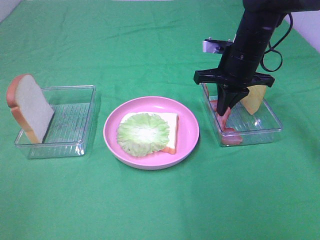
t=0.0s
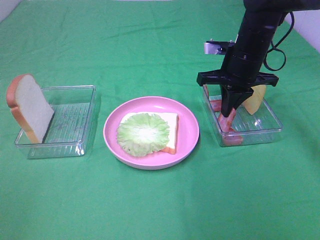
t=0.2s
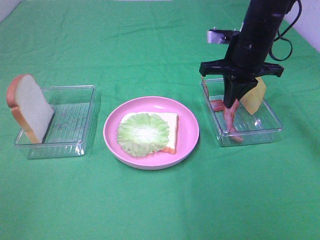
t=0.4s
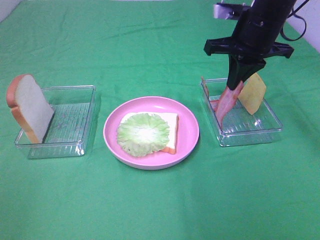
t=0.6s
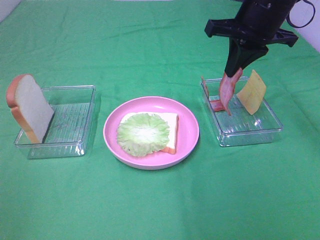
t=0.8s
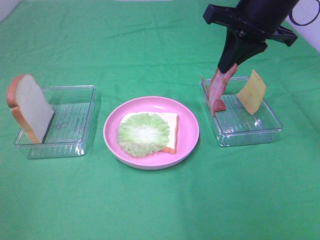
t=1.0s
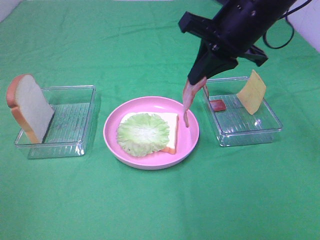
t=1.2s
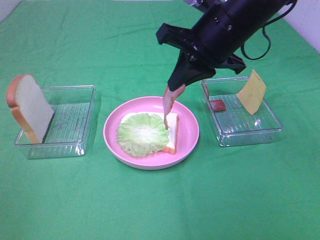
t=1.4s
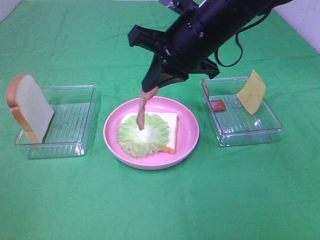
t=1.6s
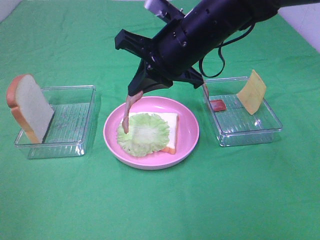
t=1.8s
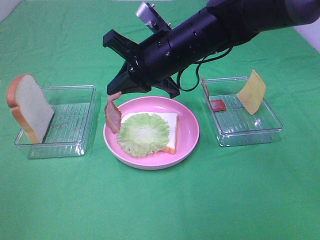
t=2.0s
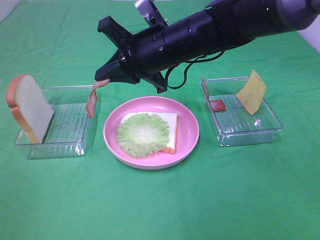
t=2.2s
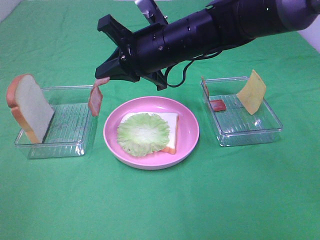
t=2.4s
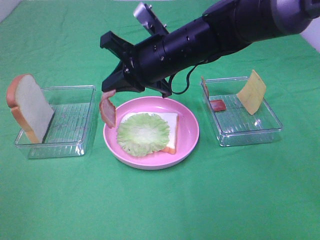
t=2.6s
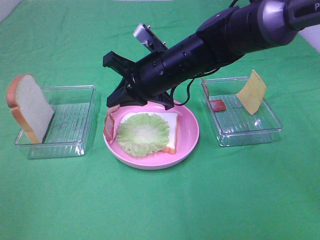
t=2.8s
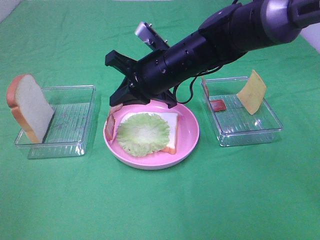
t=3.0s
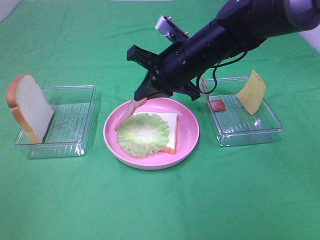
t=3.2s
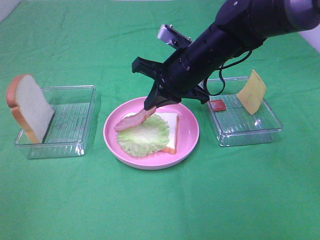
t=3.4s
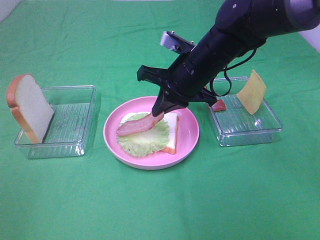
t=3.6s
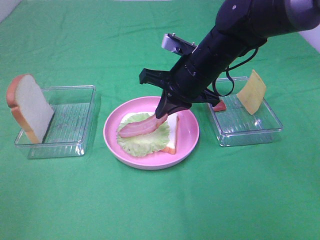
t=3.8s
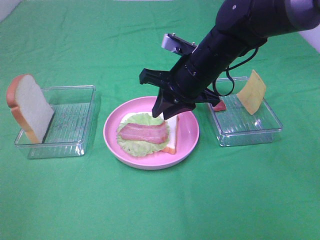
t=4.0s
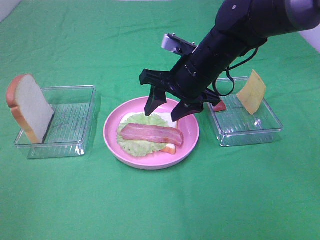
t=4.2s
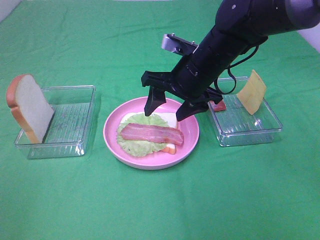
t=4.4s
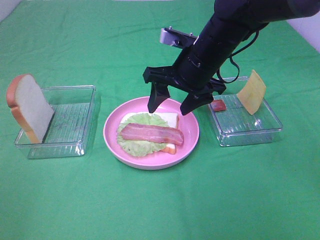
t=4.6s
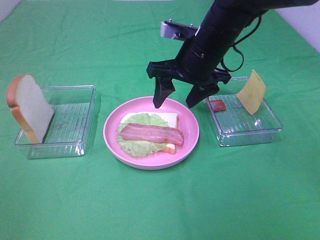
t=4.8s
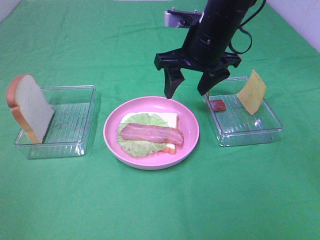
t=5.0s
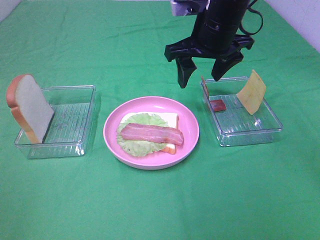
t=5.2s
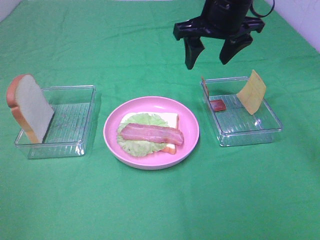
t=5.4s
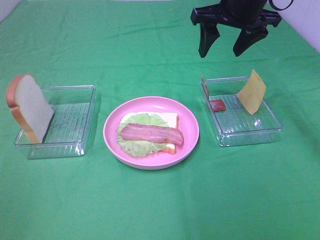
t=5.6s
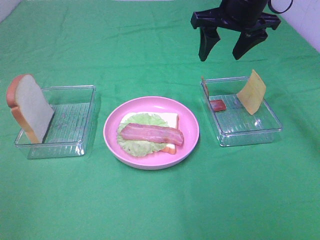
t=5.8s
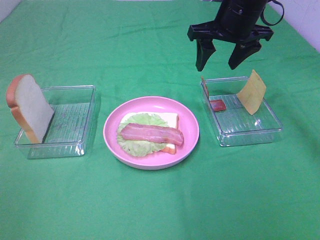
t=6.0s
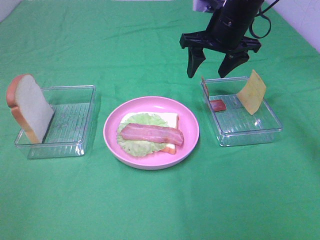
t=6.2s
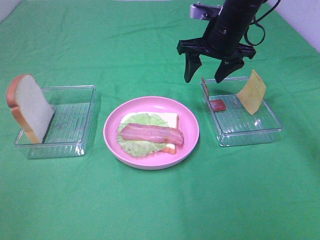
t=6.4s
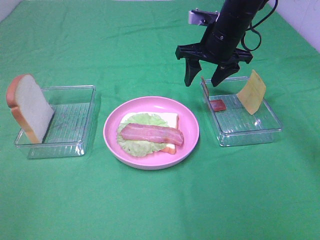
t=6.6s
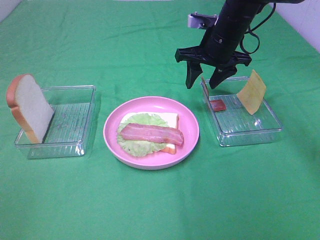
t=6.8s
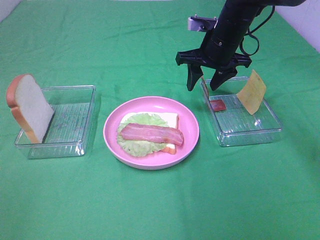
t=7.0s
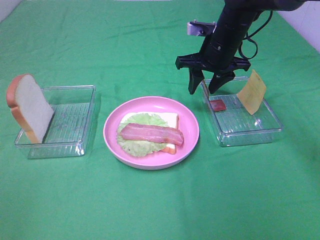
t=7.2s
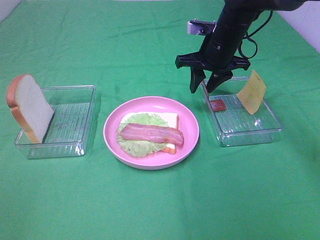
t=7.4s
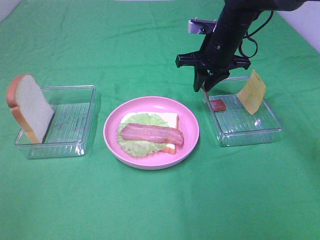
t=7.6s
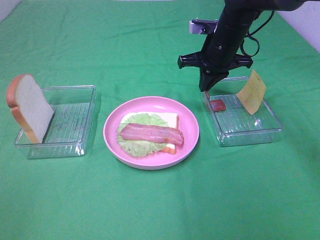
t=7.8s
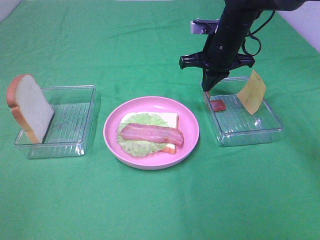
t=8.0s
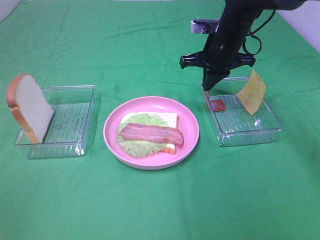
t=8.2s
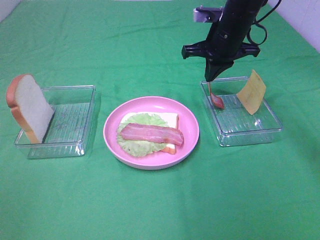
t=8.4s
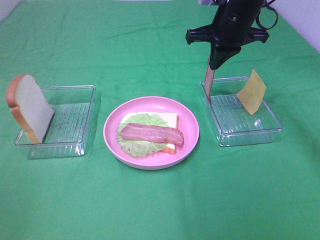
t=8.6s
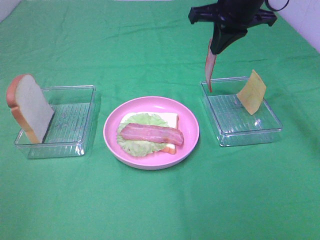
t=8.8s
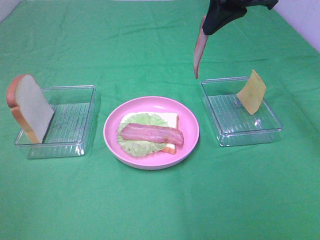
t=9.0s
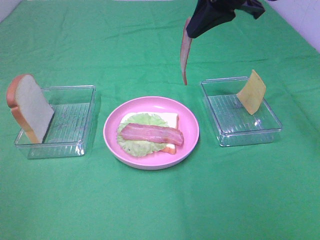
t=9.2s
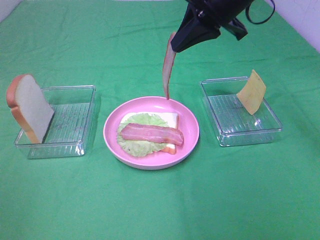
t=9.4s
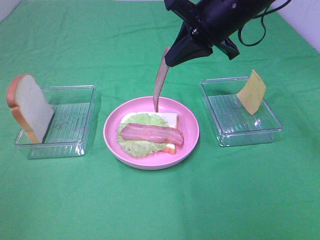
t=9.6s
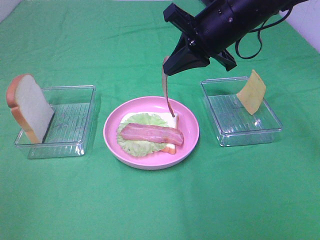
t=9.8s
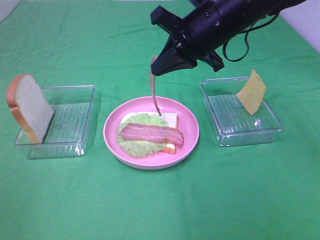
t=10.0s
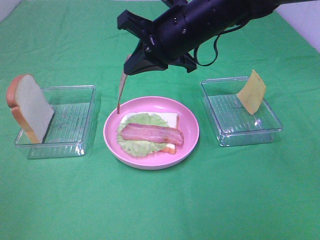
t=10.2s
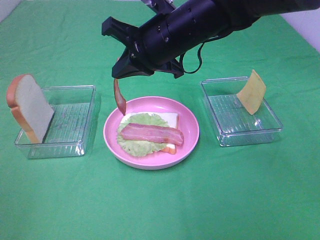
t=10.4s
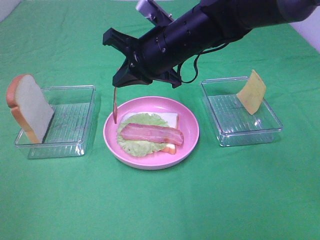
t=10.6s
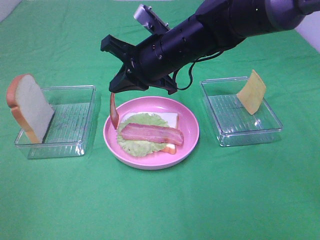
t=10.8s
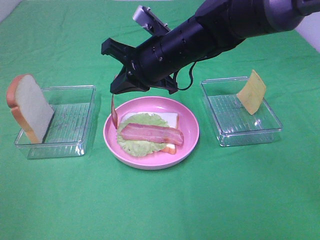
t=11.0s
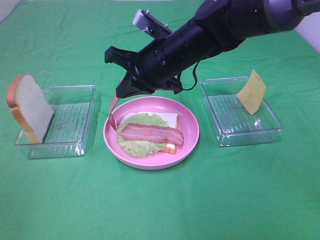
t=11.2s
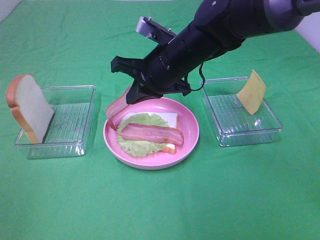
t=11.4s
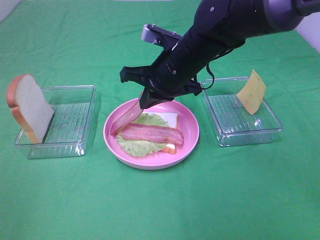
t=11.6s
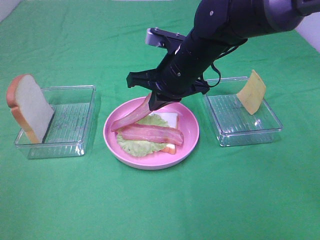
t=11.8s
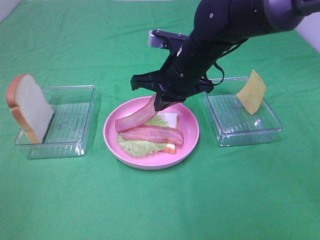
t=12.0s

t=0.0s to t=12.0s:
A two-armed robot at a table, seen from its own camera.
Task of the whole recording: Make sandwiches.
Step, t=0.2s to t=4.2s: Right hand:place bacon on lettuce slice.
Step, t=4.4s to t=8.2s: Right hand:grab the bacon.
t=0.0s to t=1.6s: The right gripper travels to the left, backward and upward by approximately 15 cm.
t=1.6s to t=3.0s: The right gripper heads downward, covering approximately 10 cm.
t=3.0s to t=4.4s: The right gripper opens up.
t=4.4s to t=6.0s: The right gripper travels upward, forward and to the right by some 10 cm.
t=6.0s to t=7.6s: The right gripper moves downward, roughly 5 cm, and closes.
t=7.6s to t=9.0s: The right gripper travels upward by approximately 15 cm.
t=9.0s to t=10.4s: The right gripper heads to the left and downward, covering roughly 15 cm.
t=10.4s to t=12.0s: The right gripper is displaced downward by roughly 5 cm.

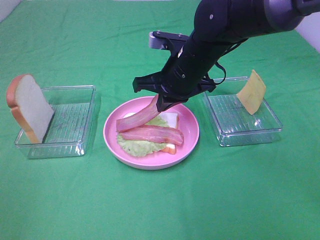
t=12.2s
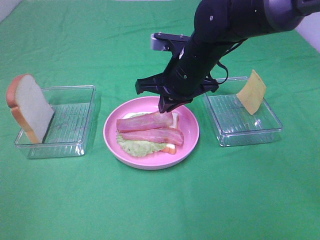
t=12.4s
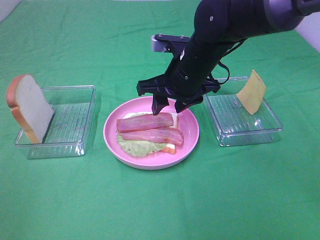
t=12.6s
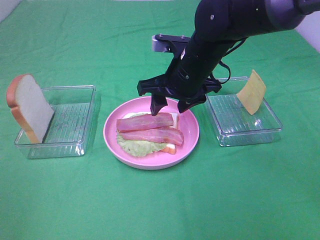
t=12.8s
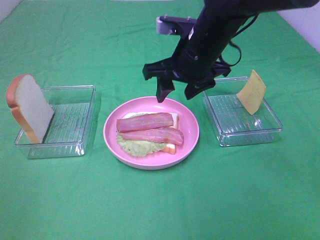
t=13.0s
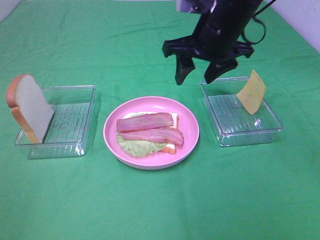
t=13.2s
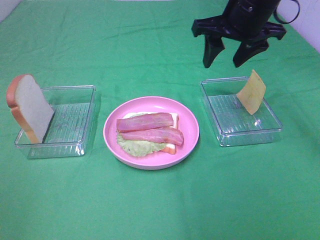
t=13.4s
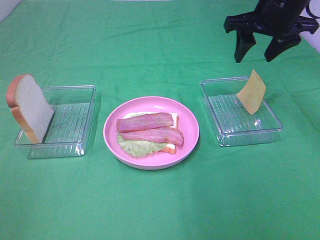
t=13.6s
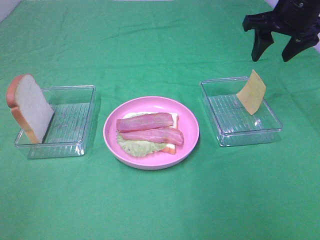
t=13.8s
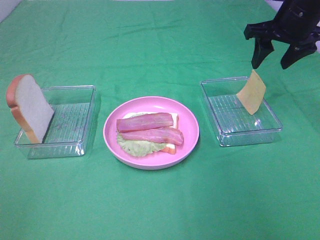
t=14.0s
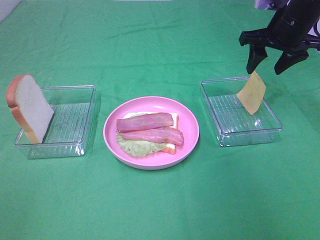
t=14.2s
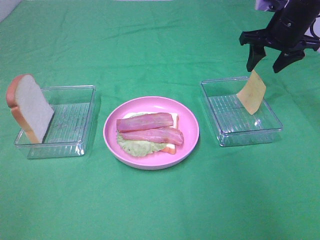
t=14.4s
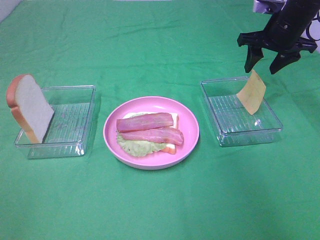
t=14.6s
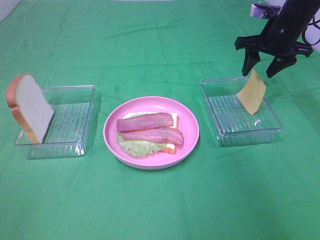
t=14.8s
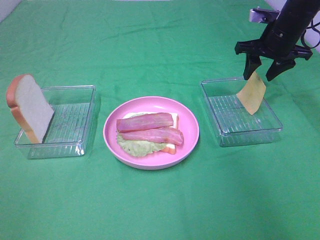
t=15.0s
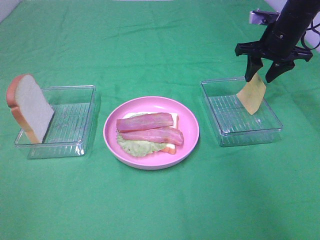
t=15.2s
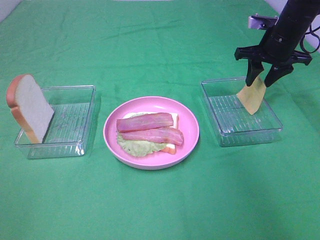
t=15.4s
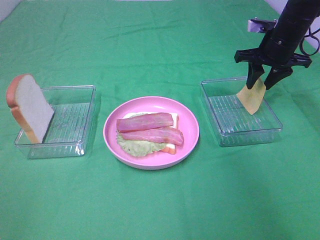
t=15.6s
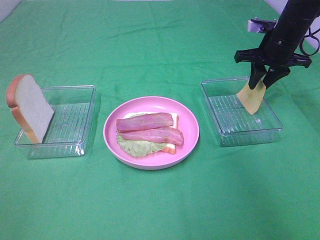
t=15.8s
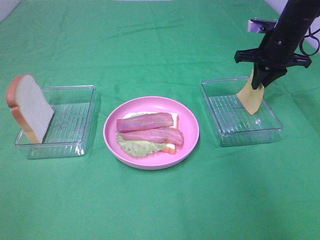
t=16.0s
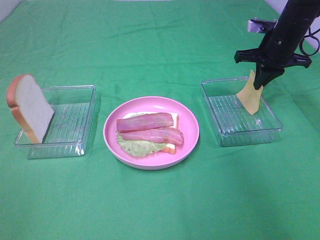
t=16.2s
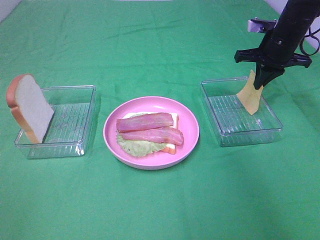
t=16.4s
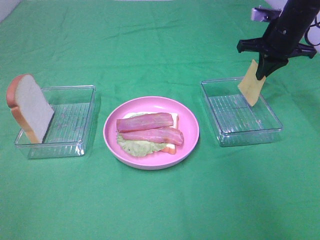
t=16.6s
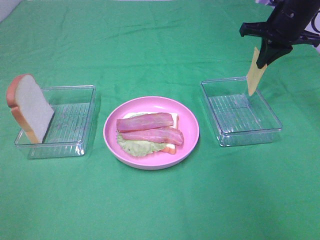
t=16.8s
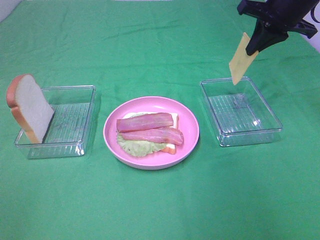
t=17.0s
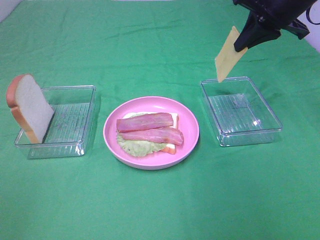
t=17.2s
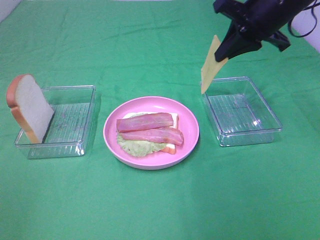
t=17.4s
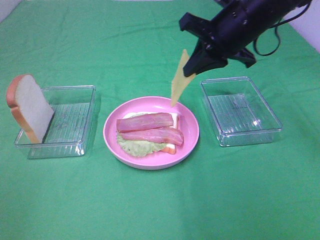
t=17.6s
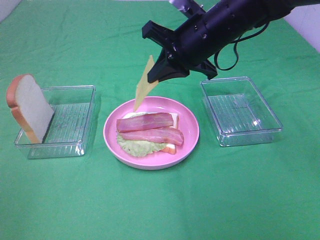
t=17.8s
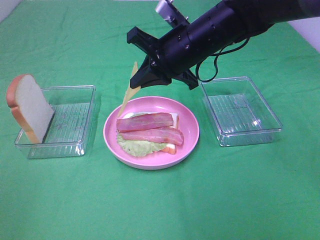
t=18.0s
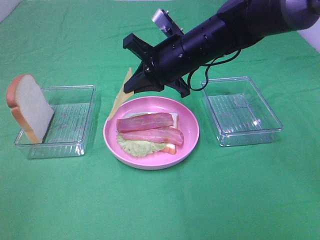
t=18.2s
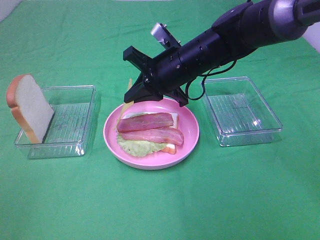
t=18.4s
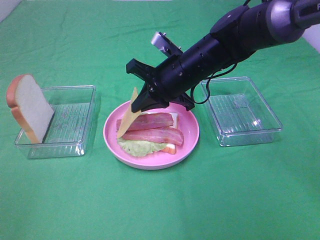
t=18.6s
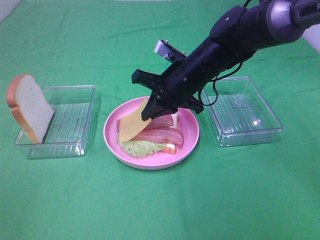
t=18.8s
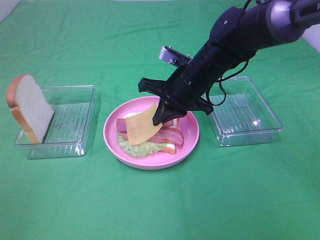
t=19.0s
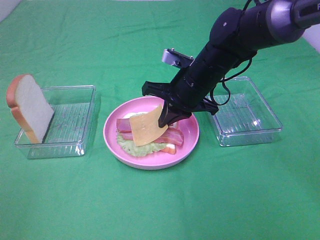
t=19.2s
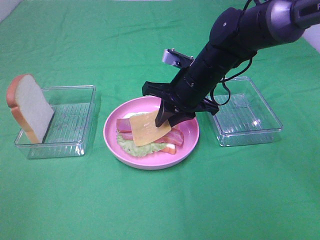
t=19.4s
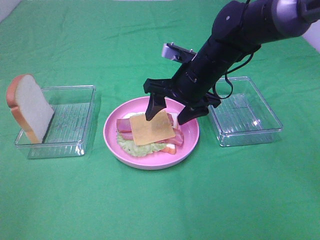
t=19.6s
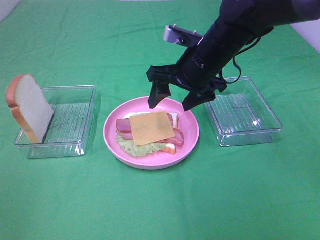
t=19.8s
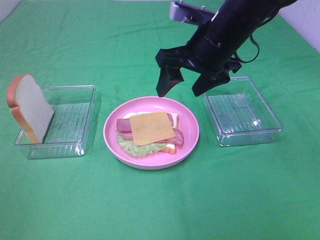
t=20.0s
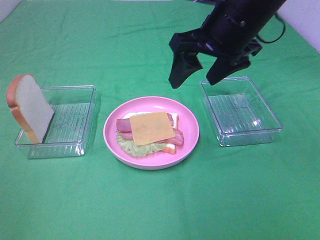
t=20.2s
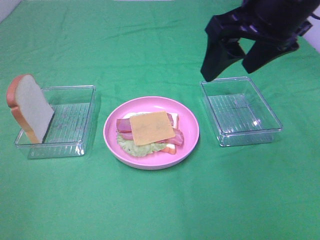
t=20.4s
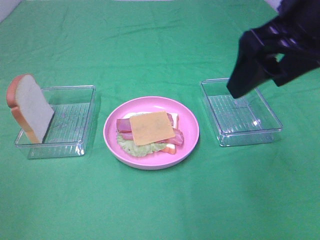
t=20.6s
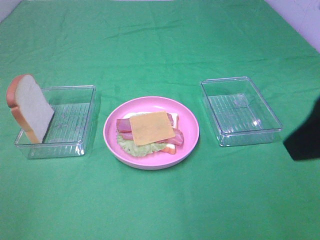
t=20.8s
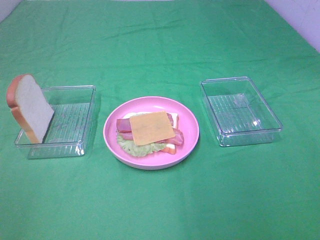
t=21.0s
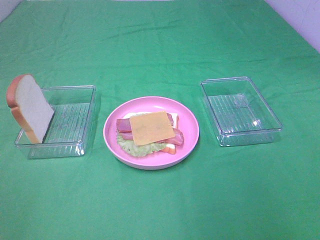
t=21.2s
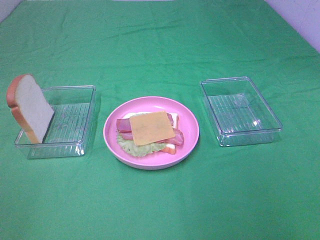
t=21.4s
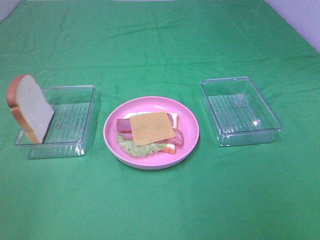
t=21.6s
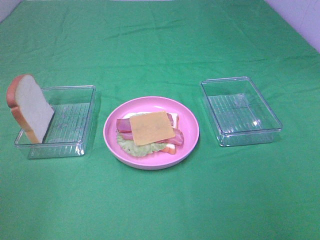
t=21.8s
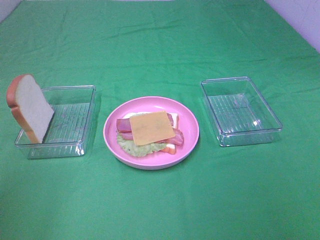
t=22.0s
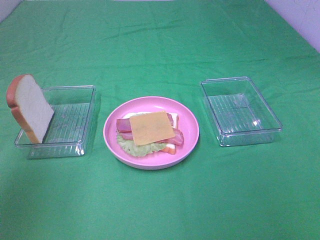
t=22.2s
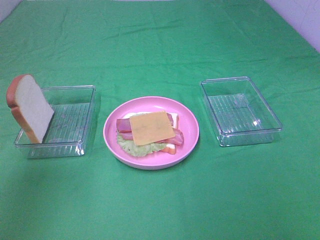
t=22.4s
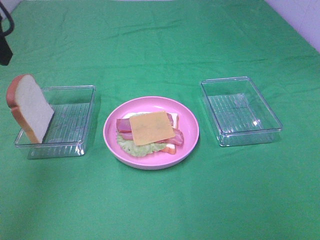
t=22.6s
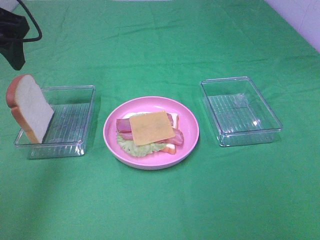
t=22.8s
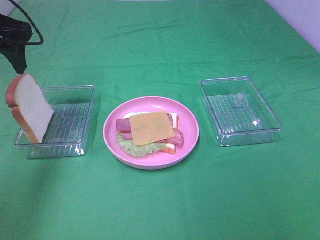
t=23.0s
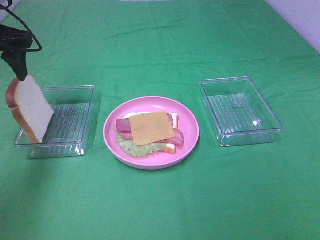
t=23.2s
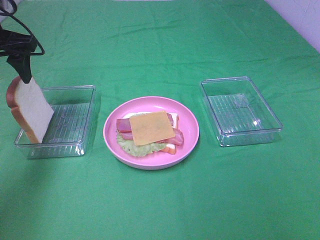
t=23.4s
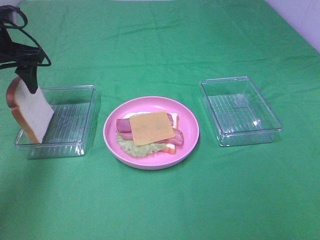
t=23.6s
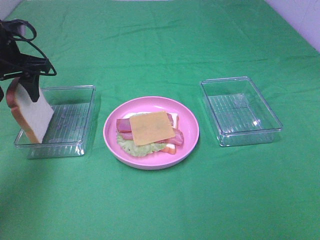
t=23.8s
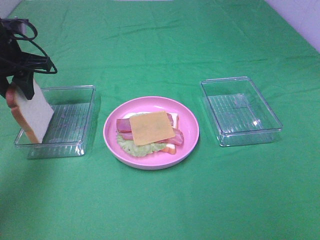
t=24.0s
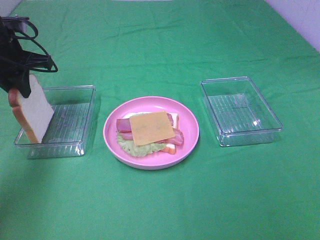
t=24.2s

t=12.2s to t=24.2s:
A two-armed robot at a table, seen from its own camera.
Task of the whole recording: Make sandwiches.
Step, t=12.8s to t=16.6s: Right hand:grab the cheese slice.
Step, t=16.8s to t=19.8s: Right hand:place the cheese slice on top of the bacon.
Step, t=20.0s to t=24.2s: Left hand:grab the bread slice.
t=12.2s to t=13.8s: The right gripper is displaced to the right and upward by roughly 20 cm, and opens up.
t=13.8s to t=15.2s: The right gripper moves downward and forward, about 10 cm.
t=15.2s to t=16.6s: The right gripper closes its fingers.
t=16.6s to t=18.2s: The right gripper heads to the left and backward, covering about 20 cm.
t=18.2s to t=19.8s: The right gripper opens.
t=19.8s to t=21.2s: The right gripper heads backward and to the right, covering roughly 35 cm.
t=21.2s to t=22.6s: The left gripper is displaced forward by some 25 cm.
t=22.6s to t=24.2s: The left gripper travels forward and downward by approximately 20 cm, and closes.
